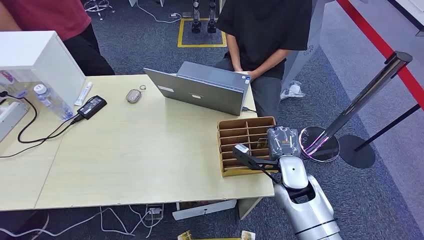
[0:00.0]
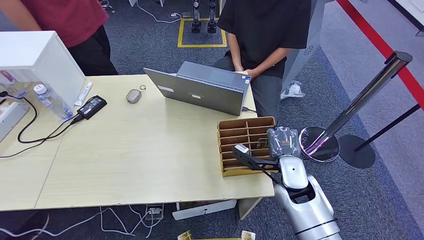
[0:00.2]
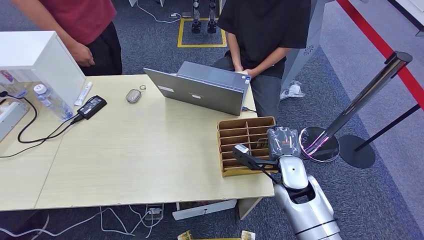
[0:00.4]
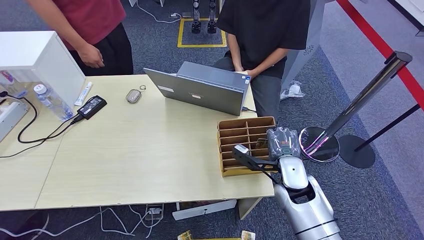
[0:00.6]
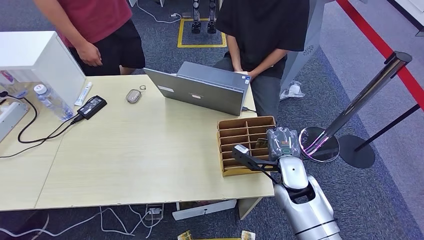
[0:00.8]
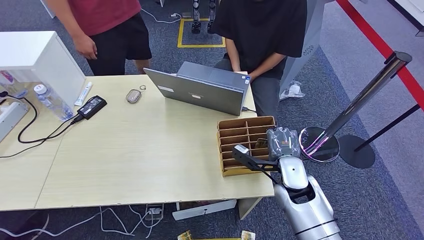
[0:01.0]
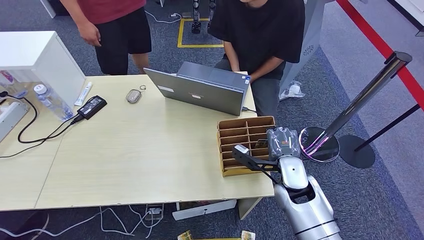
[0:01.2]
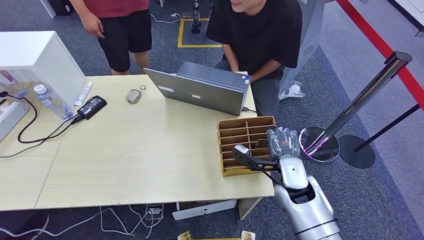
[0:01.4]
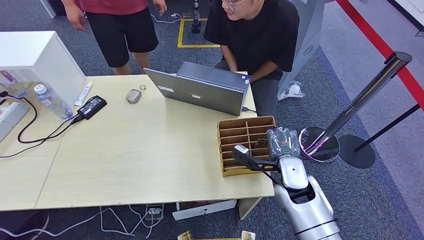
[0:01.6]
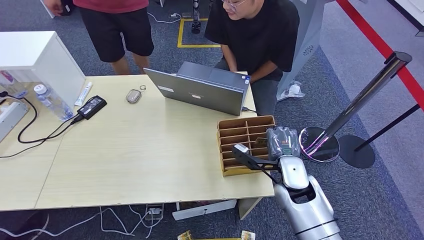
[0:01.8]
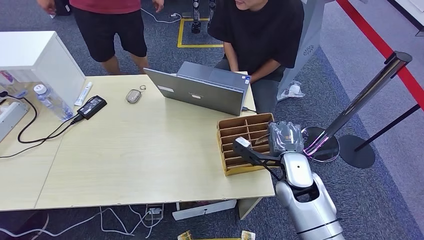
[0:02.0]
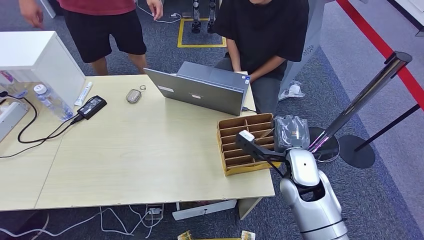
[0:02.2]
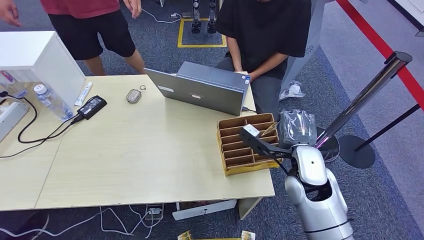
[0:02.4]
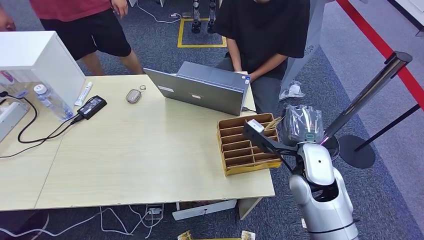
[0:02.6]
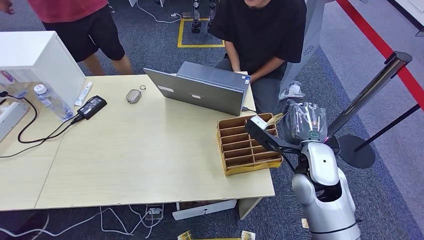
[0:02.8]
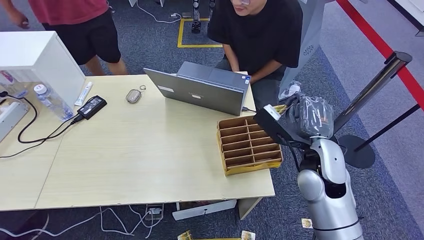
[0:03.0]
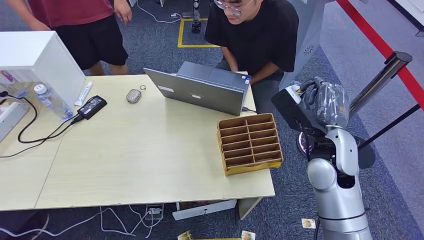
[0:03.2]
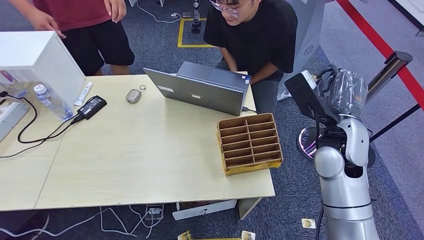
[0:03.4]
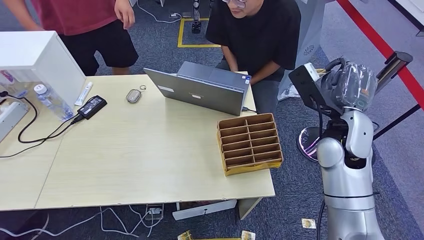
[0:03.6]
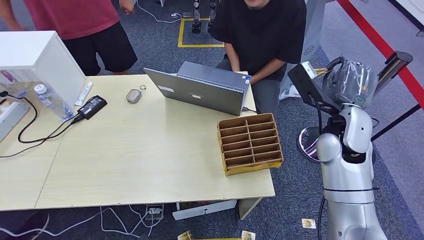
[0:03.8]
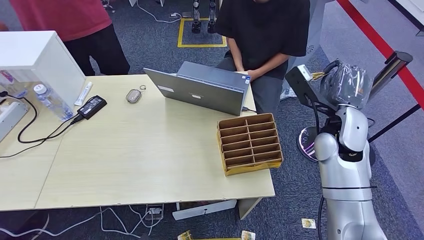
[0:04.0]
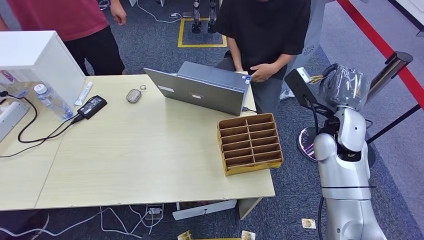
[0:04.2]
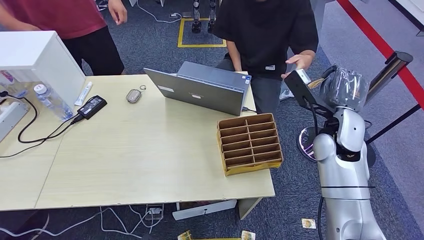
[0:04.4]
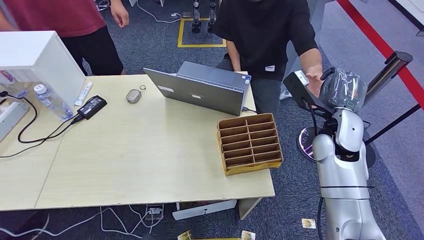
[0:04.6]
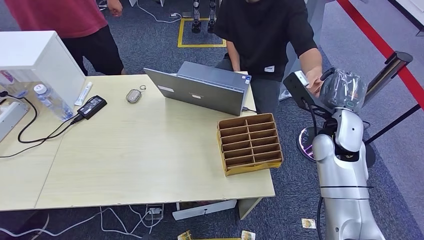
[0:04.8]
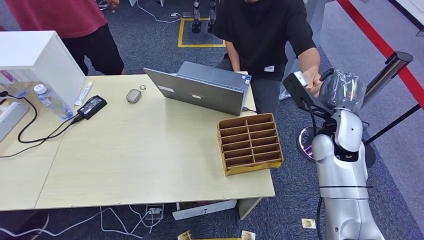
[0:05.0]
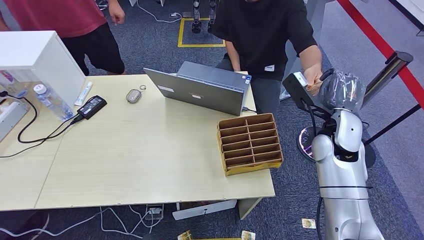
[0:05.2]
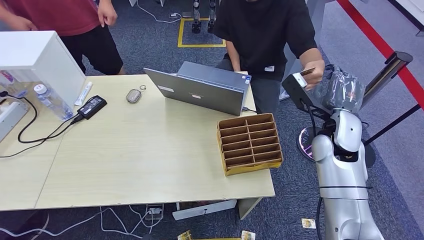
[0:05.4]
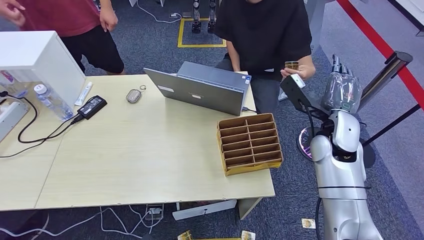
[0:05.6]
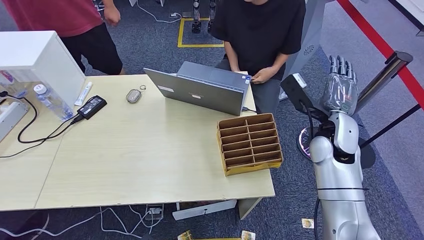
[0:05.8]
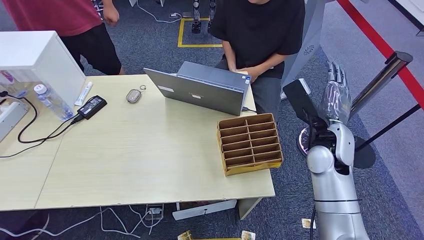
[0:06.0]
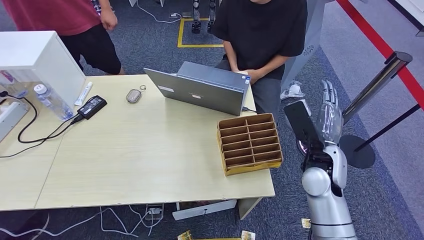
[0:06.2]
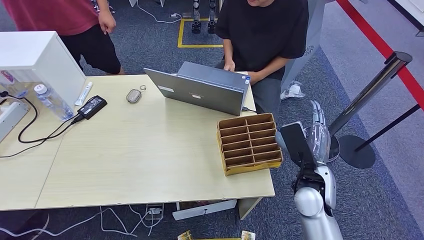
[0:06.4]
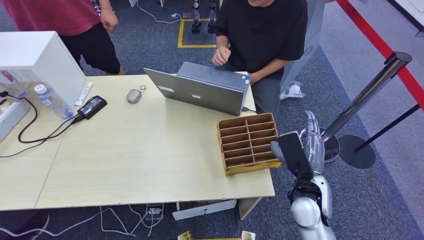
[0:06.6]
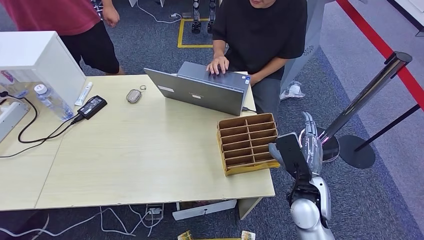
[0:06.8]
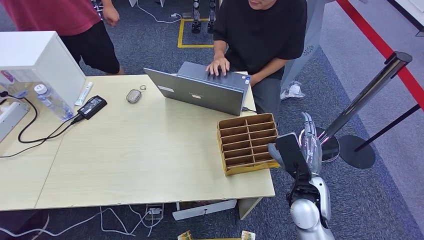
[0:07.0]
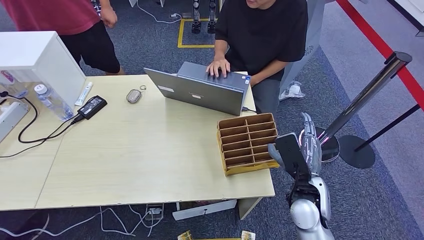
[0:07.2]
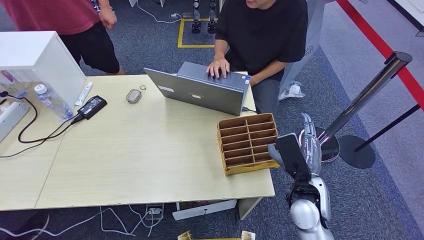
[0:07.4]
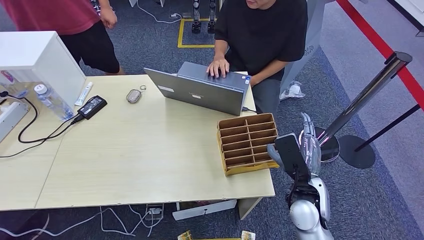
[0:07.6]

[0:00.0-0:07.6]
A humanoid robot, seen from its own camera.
Step, 0:00.0 to 0:02.0: Pick up the room card from the card holder.
Step, 0:02.2 to 0:07.6: Hand the room card to the target.
0:01.6 to 0:03.0: The right hand is displaced upward by approximately 10 cm.
0:03.0 to 0:04.6: The right hand shifts about 10 cm forward and to the right.
0:04.6 to 0:06.0: The hands make only small movements.
0:06.0 to 0:07.6: The right hand heads backward and downward, covering approximately 15 cm.
